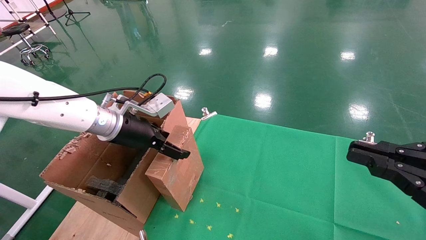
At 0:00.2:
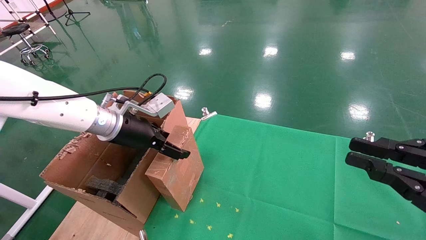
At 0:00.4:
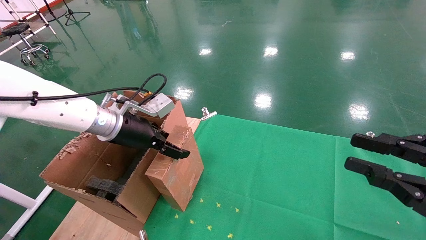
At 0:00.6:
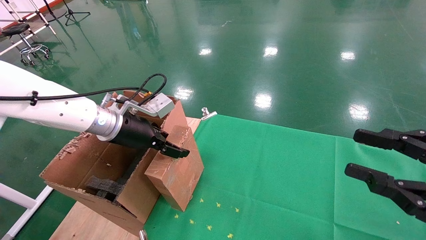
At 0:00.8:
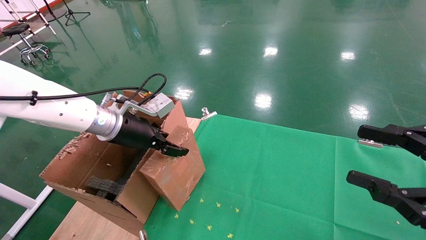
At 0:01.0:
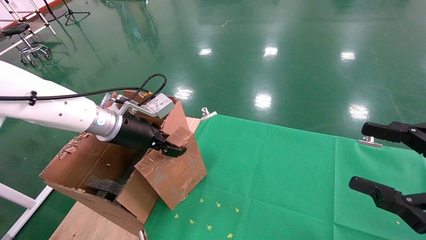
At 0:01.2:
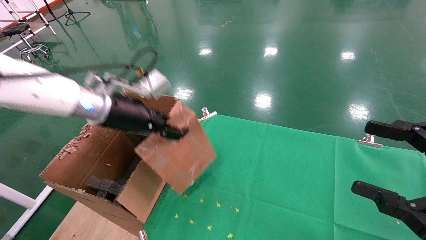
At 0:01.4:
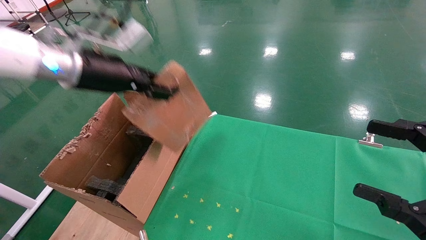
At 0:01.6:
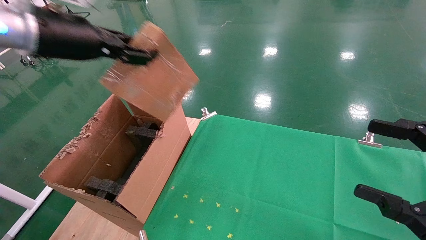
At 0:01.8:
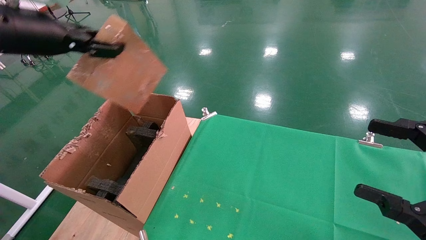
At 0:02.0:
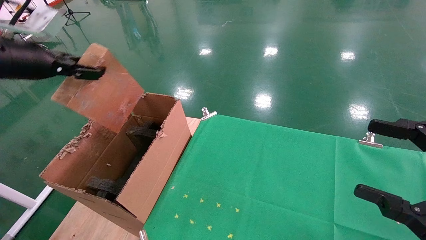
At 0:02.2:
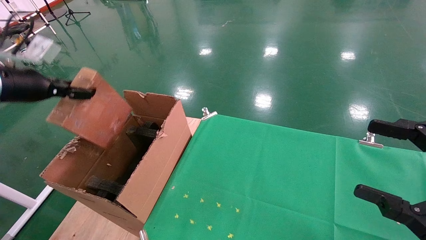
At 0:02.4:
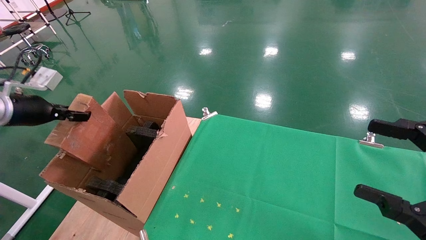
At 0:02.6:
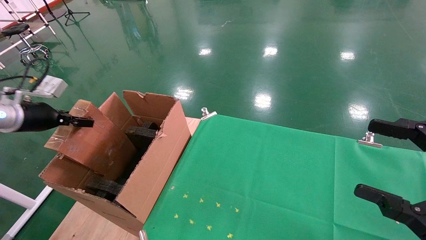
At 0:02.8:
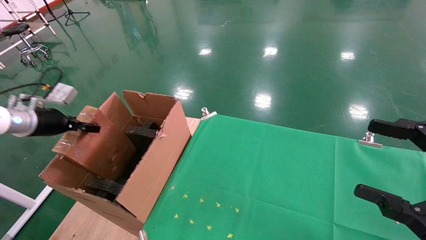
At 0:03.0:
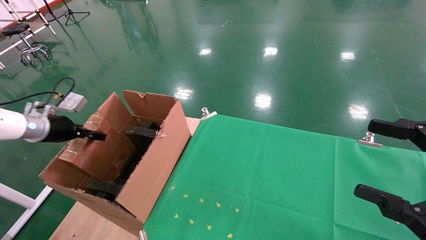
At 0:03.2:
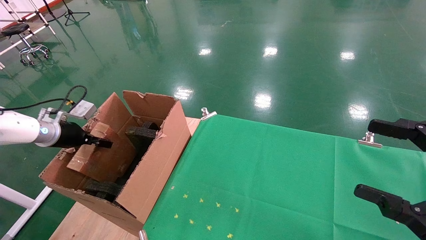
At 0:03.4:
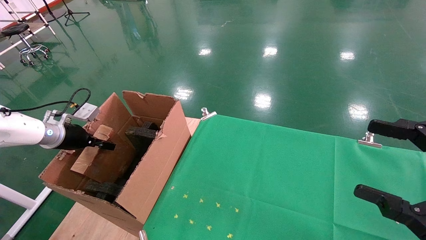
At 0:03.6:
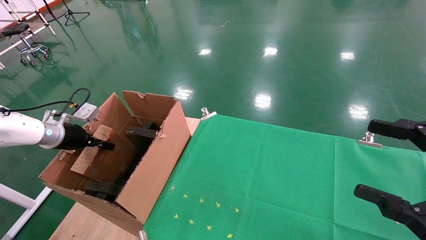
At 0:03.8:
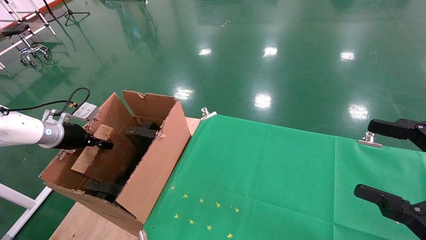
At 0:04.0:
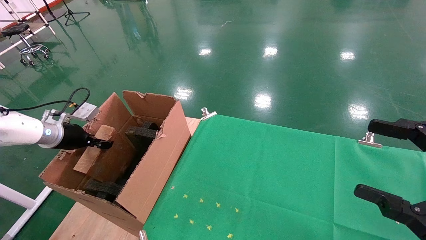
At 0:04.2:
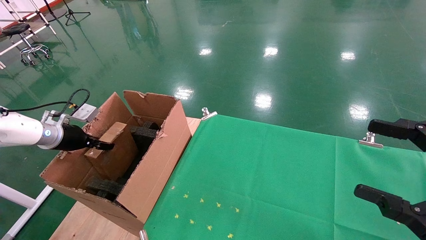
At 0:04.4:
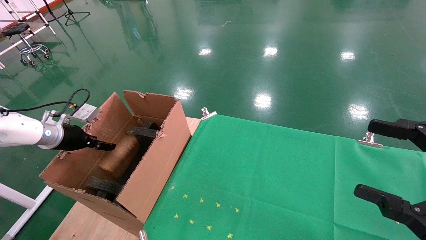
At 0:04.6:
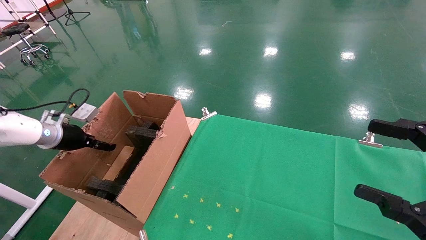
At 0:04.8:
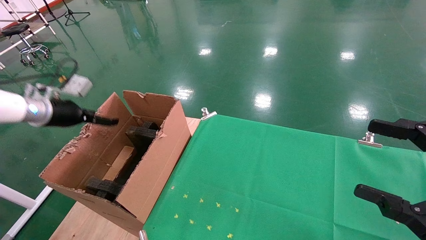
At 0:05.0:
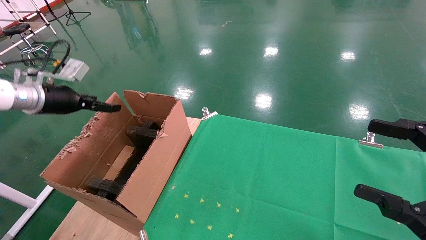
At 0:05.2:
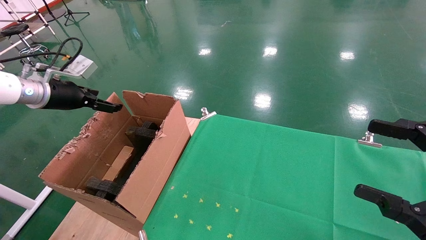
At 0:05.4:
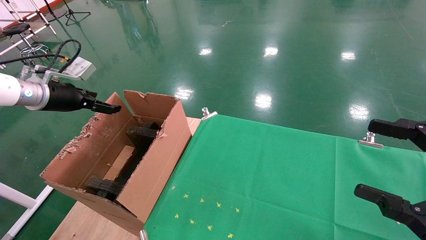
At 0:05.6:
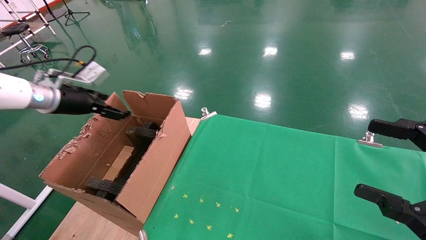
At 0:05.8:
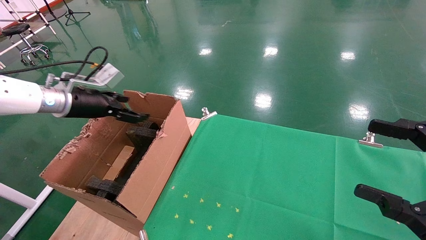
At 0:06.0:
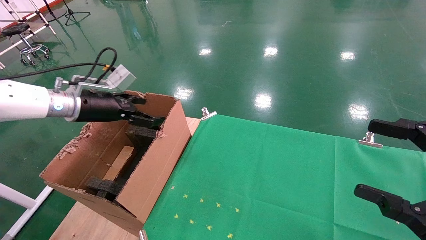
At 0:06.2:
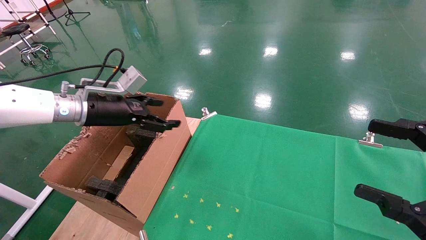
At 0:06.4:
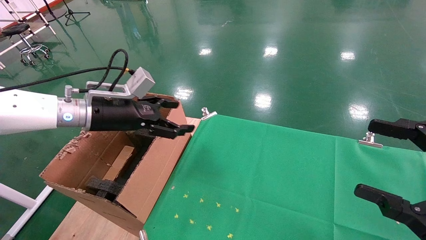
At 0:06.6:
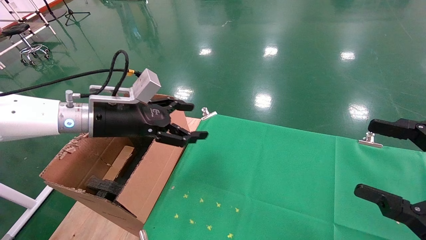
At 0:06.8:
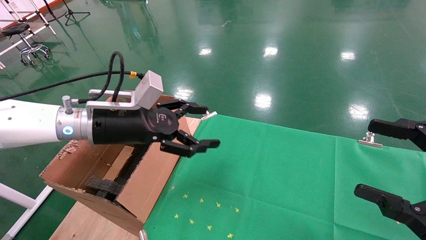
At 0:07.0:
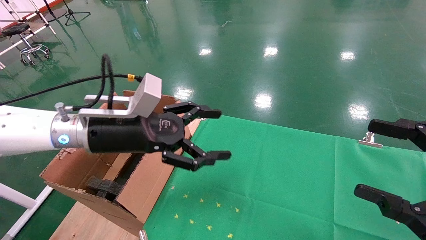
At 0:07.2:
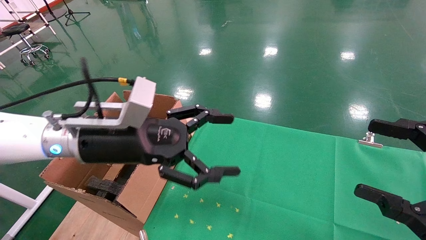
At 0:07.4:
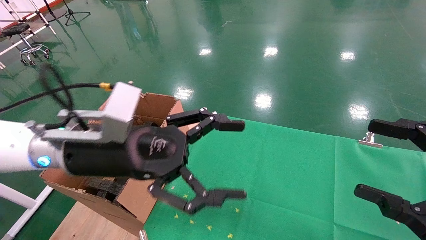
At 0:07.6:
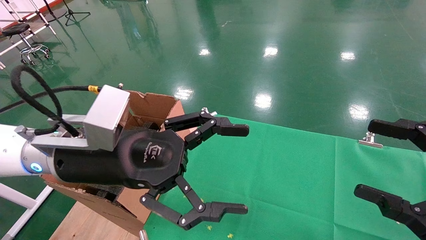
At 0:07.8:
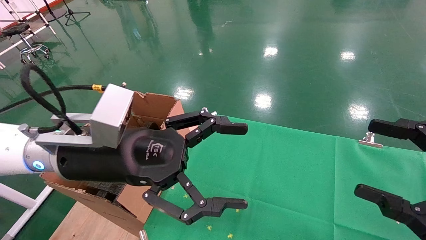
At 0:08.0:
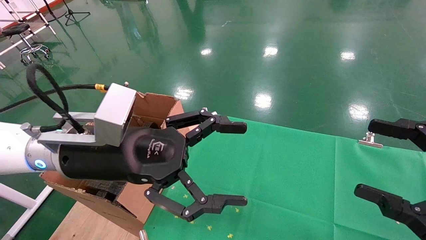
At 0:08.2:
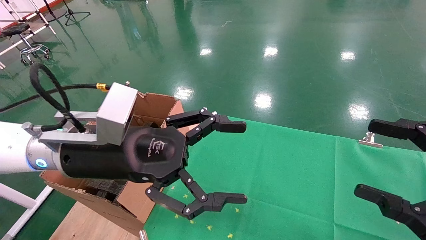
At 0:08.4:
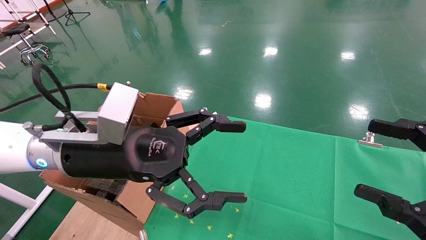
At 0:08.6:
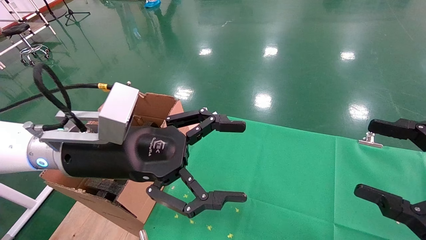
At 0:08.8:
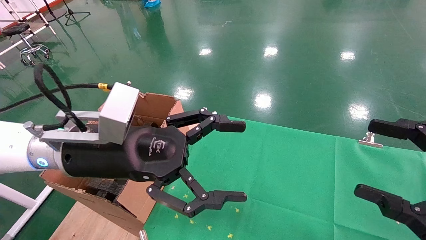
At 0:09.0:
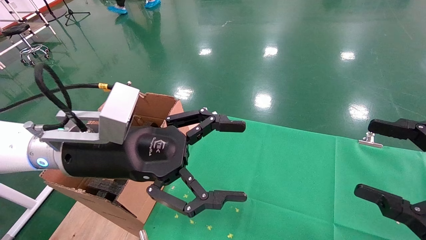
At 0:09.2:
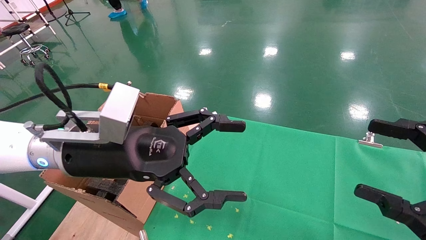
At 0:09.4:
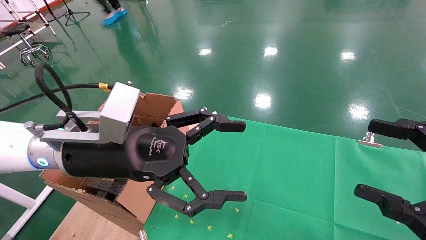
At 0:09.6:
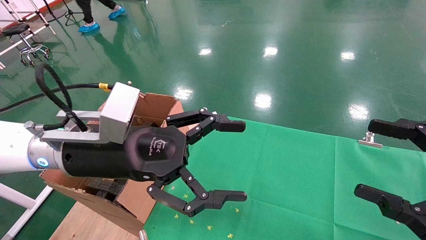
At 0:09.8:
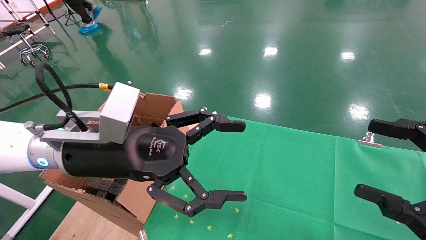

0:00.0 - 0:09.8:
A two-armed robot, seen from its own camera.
Task of the whole recording: using a robotic arm to pick up a cardboard box and palace it the carton.
Step, 0:01.0 - 0:05.0: Place the mouse and the power cord paper box into the container.
0:00.0 - 0:01.4: The left gripper shifts about 10 cm upward, and closes its fingers. The right gripper opens up.
0:01.4 - 0:02.8: The left gripper is displaced to the left and downward by roughly 25 cm.
0:02.8 - 0:04.2: The left gripper goes about 5 cm downward.
0:04.2 - 0:05.6: The left gripper moves upward and to the right, about 15 cm, and opens its fingers.
0:05.6 - 0:07.0: The left gripper travels to the right and backward by roughly 20 cm.
0:07.0 - 0:08.4: The left gripper shifts roughly 5 cm backward.
0:08.4 - 0:09.8: The two grippers keep their place.

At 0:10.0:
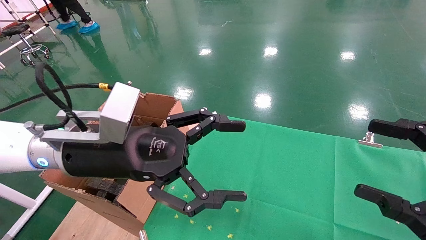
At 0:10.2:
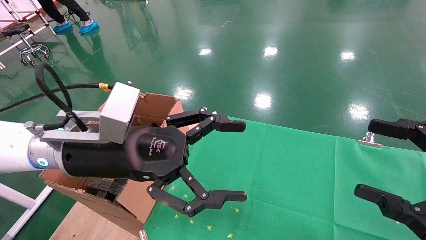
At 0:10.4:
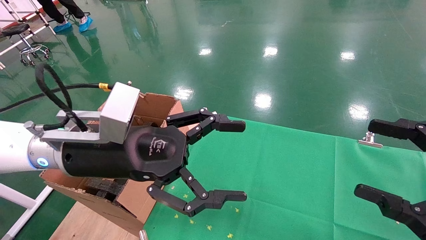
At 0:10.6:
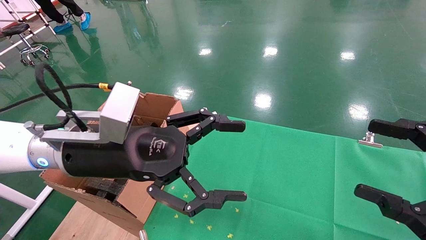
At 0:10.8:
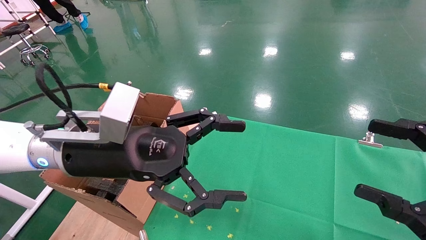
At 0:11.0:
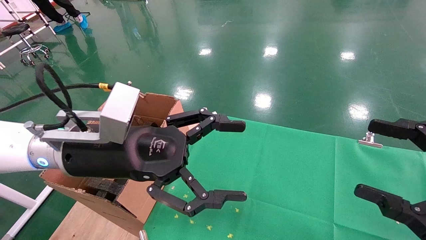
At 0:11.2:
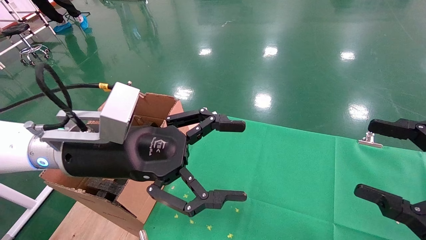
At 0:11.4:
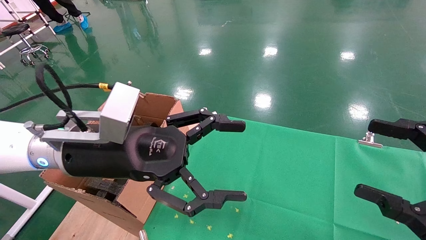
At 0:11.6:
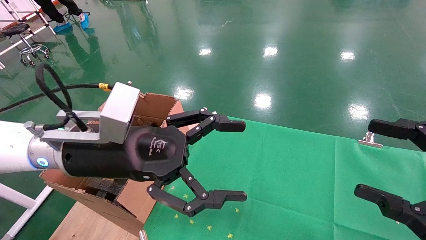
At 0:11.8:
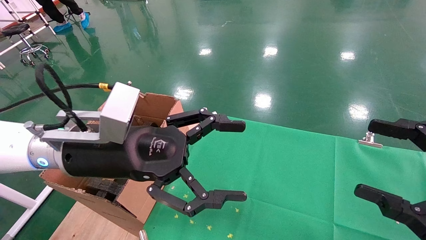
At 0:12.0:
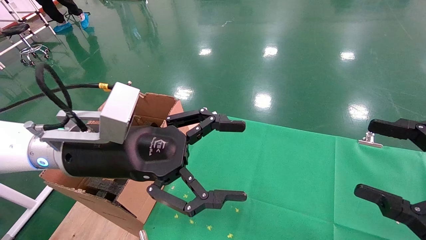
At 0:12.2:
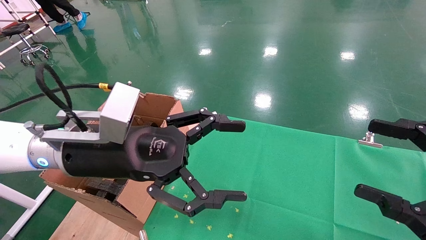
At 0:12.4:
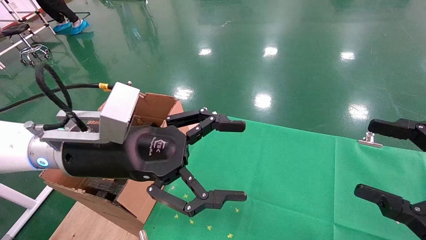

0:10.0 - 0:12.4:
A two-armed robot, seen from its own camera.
Task of the whole recording: using a robotic arm to pick up a cardboard box and palace it the carton.
0:10.0 - 0:12.4: Both grippers stay about where they are.
